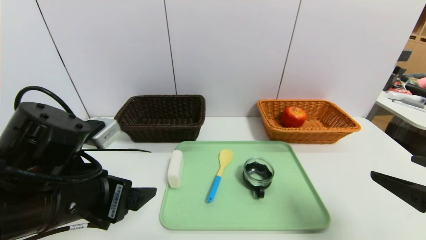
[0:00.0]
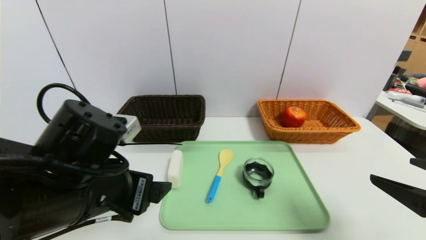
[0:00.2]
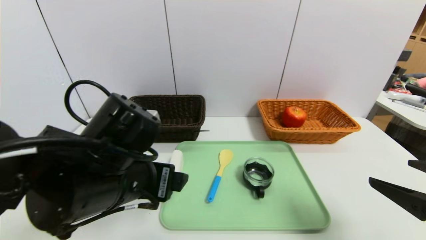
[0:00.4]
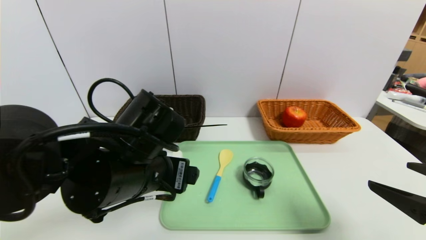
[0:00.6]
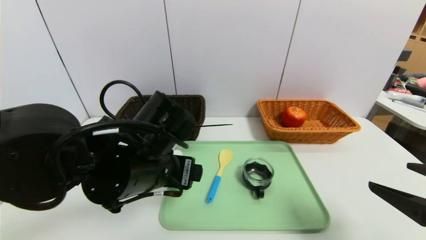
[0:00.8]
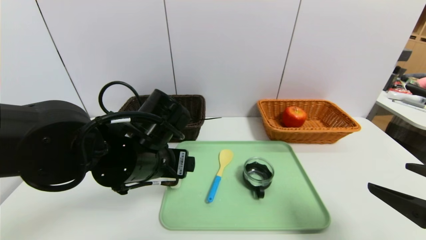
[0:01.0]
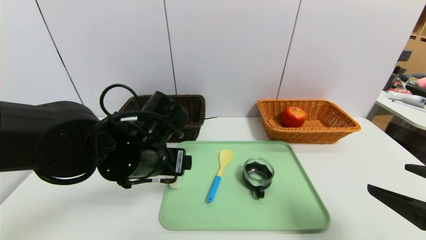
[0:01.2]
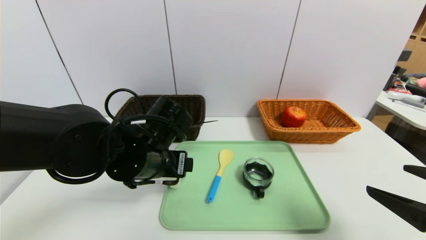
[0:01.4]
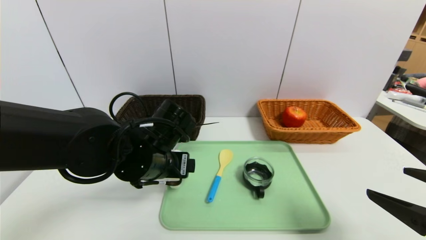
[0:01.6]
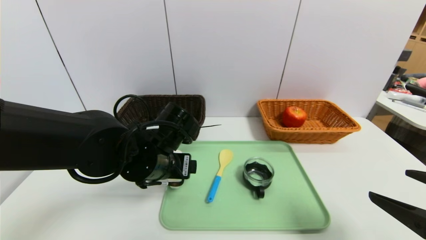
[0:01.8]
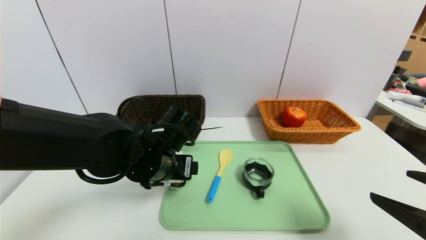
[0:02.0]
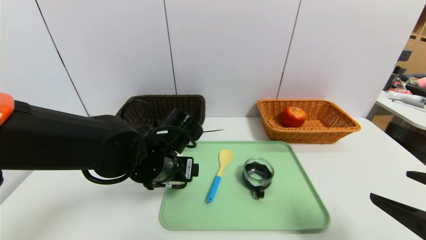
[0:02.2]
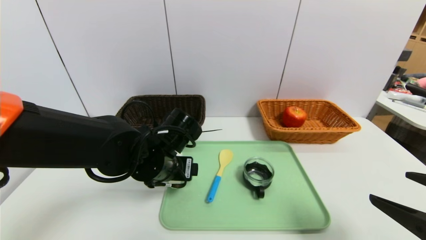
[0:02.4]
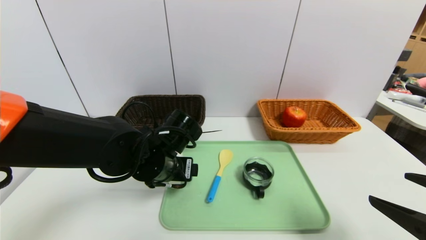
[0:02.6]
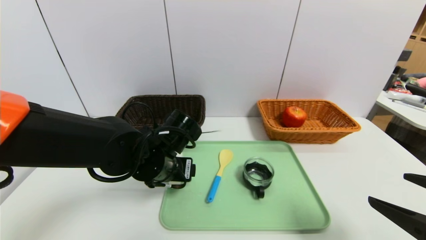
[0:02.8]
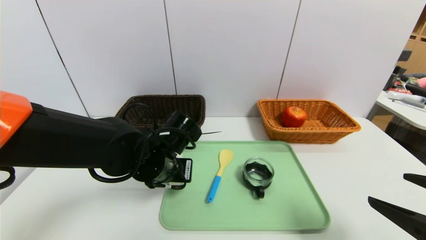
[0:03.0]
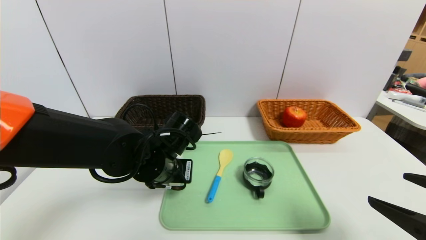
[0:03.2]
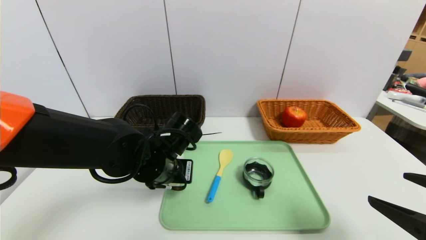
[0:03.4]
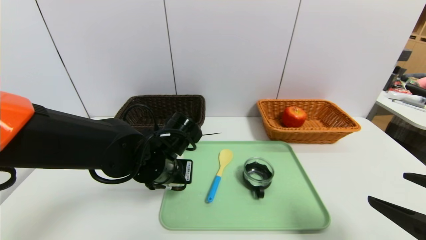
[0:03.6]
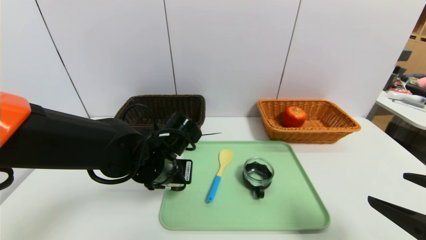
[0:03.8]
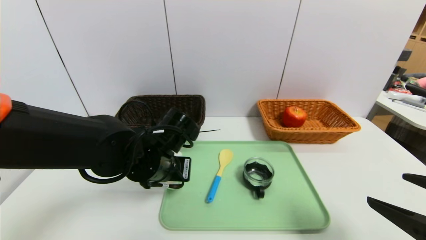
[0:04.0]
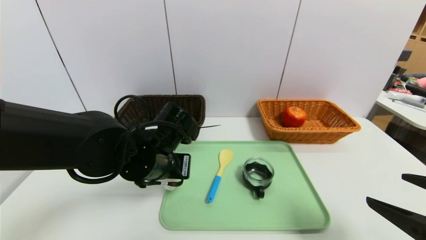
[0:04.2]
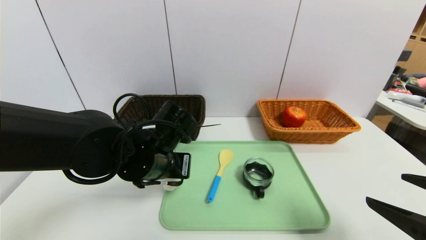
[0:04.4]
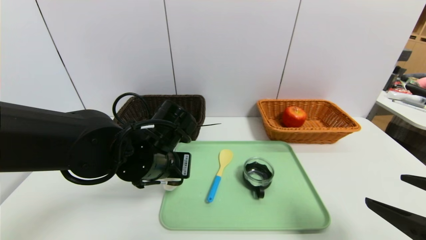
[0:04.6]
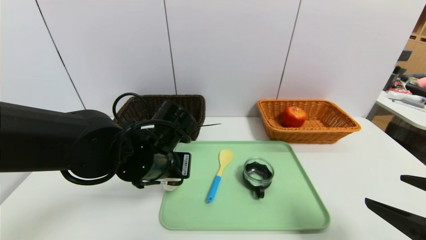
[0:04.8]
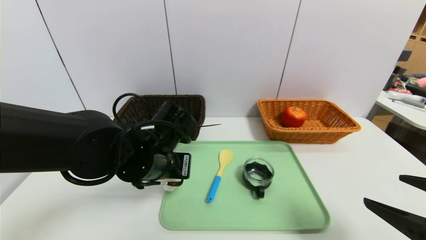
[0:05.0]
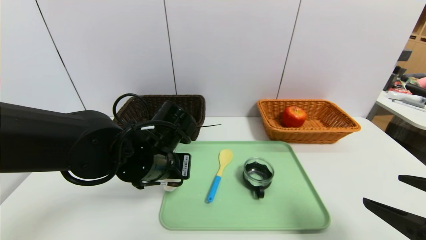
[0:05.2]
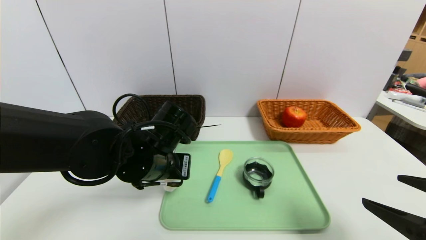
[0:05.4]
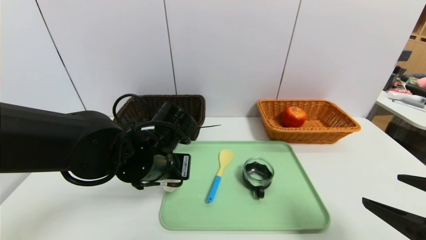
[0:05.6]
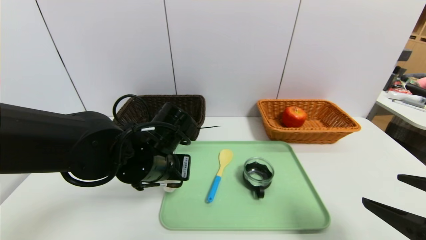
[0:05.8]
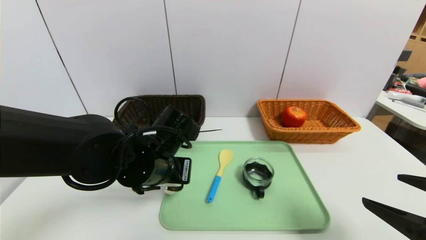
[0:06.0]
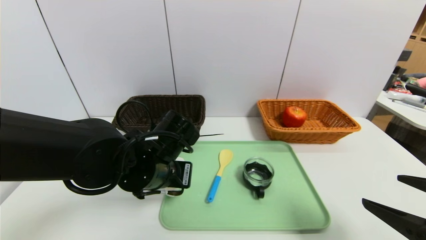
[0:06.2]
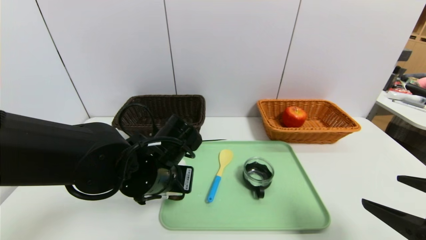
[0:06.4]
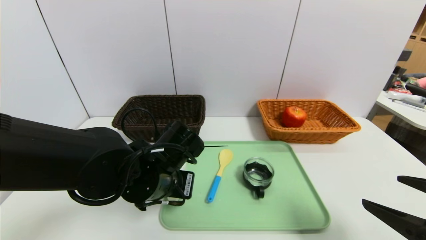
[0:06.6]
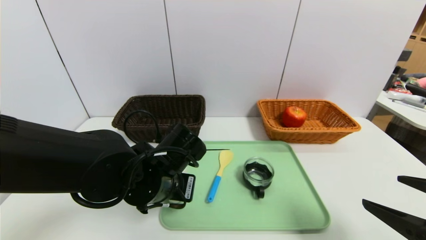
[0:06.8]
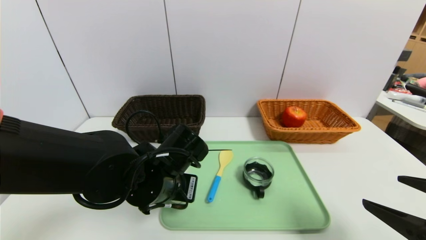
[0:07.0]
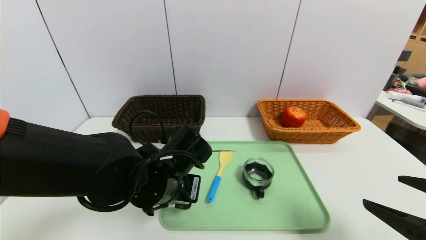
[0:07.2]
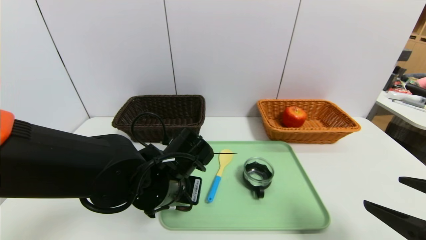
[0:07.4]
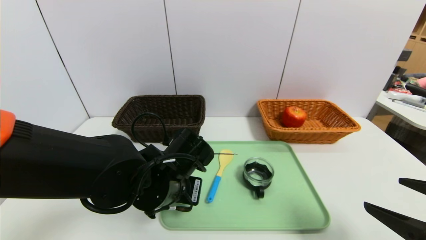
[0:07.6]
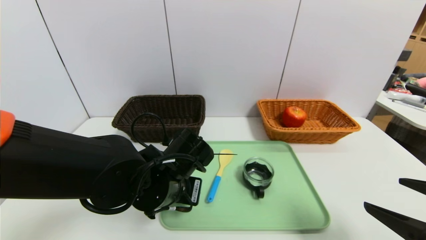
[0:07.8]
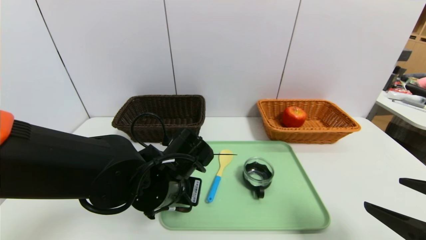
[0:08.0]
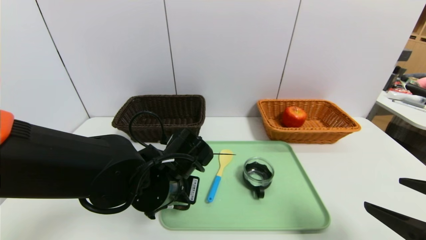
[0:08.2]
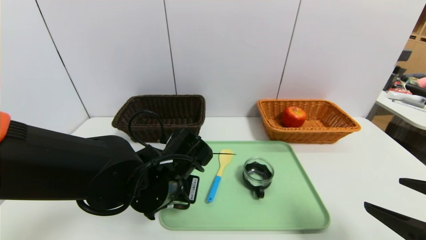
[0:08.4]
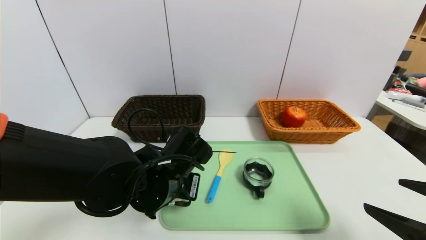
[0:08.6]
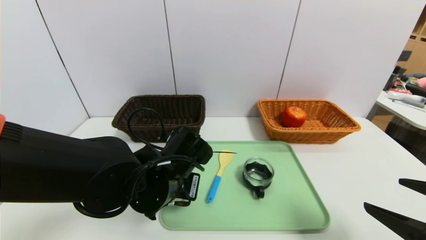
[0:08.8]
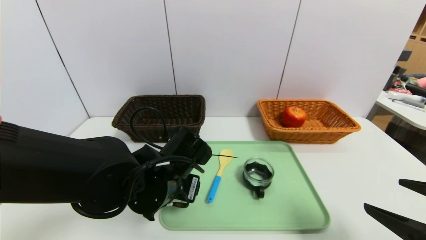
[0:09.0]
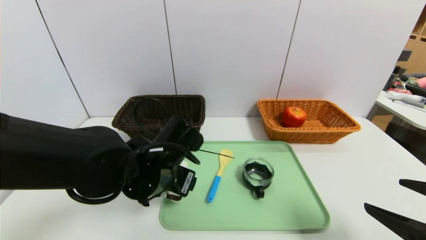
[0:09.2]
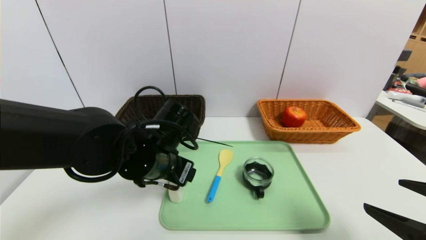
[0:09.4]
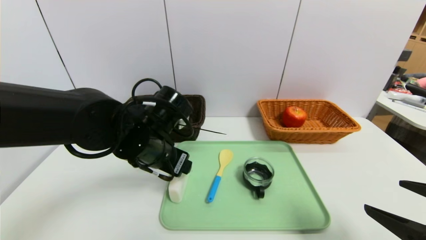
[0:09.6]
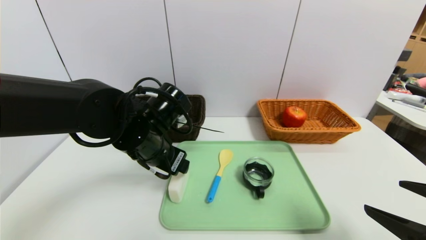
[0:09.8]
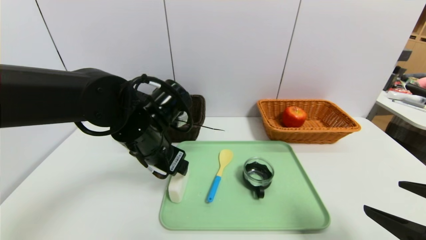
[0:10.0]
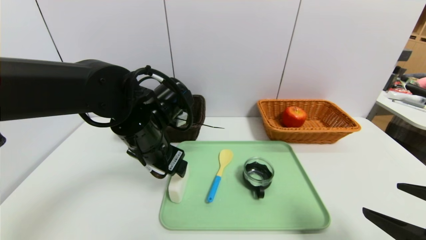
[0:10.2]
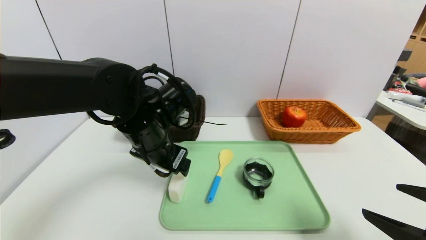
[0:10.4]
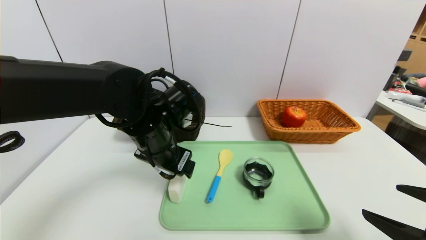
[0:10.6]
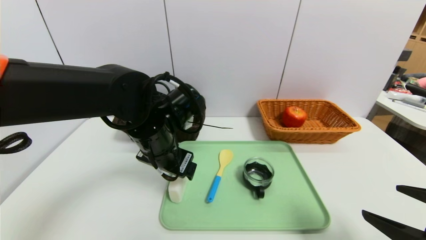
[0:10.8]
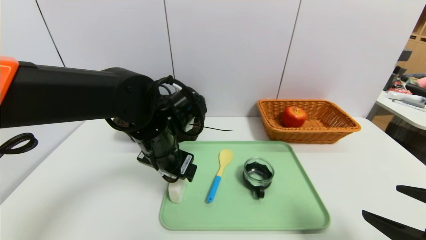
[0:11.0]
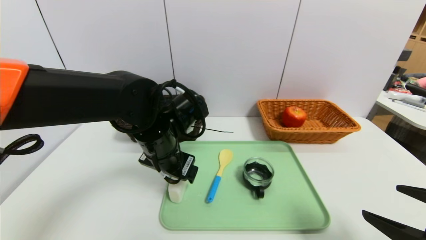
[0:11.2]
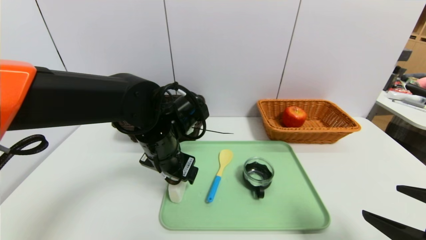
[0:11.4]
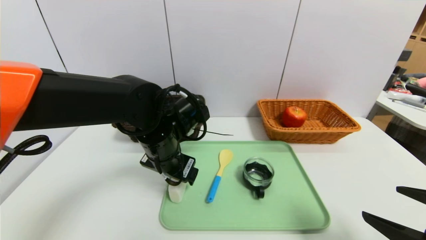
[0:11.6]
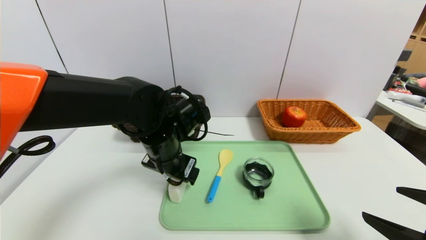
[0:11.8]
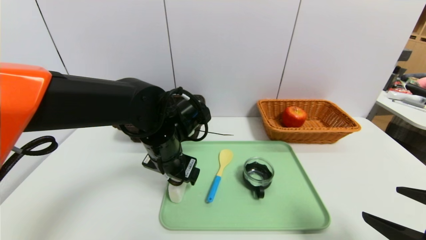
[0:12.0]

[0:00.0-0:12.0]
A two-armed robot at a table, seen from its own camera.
Task of the whole recording: place the food in the right basket with the right gripper, and place the non food items in the left basket with the left gripper.
0:00.0 to 0:01.6: The left gripper is displaced forward and to the right by approximately 15 cm.
0:01.6 to 0:03.0: The left gripper closes up.
0:03.0 to 0:04.4: The left gripper closes its fingers.
0:04.4 to 0:06.0: The two grippers keep their place.
0:06.0 to 0:07.6: The grippers make only small movements.
0:07.6 to 0:09.0: The left gripper opens its fingers.
0:09.0 to 0:10.4: The left gripper goes some 5 cm upward.
0:10.4 to 0:12.0: The grippers move only a little.

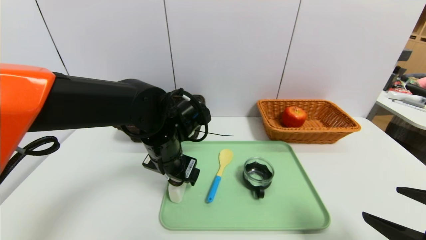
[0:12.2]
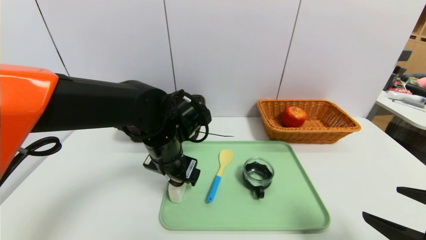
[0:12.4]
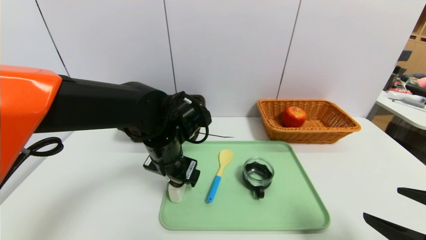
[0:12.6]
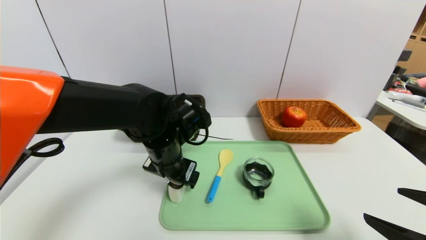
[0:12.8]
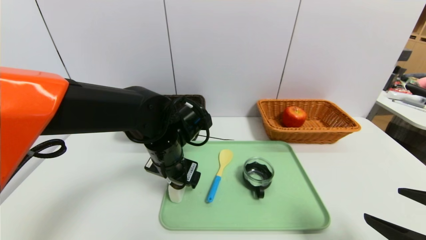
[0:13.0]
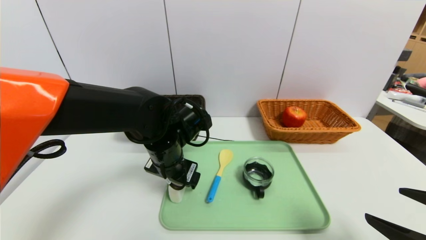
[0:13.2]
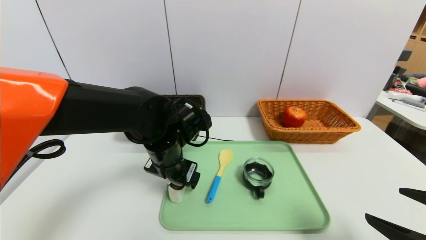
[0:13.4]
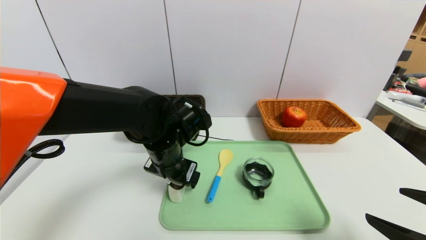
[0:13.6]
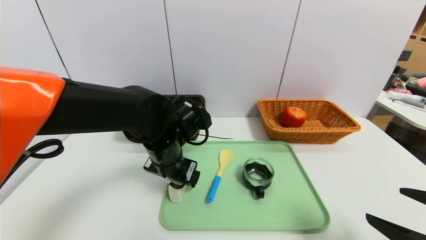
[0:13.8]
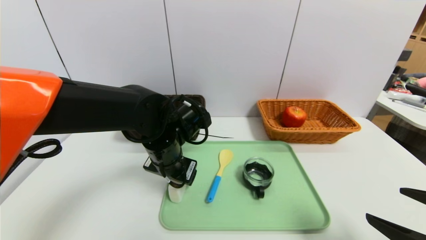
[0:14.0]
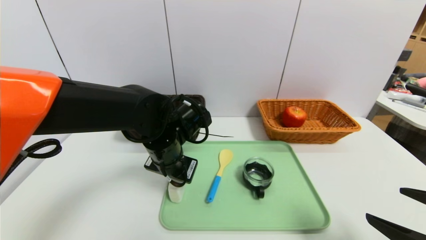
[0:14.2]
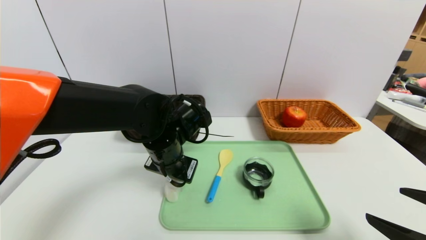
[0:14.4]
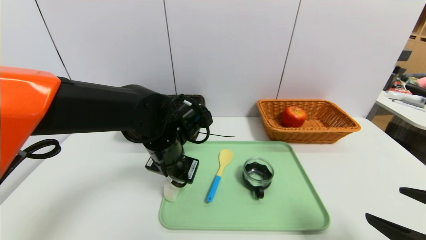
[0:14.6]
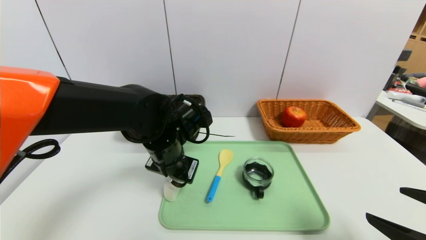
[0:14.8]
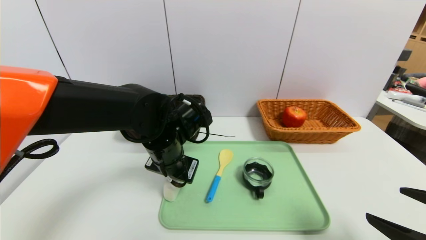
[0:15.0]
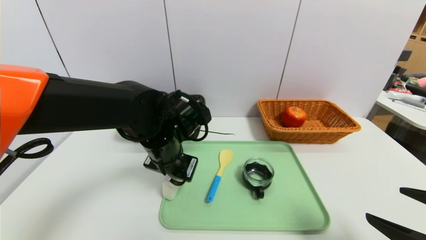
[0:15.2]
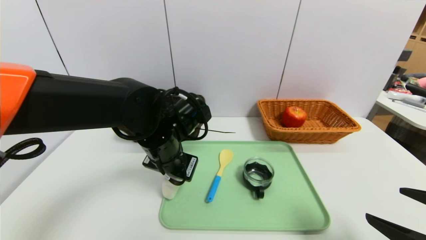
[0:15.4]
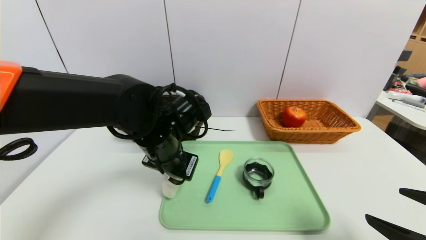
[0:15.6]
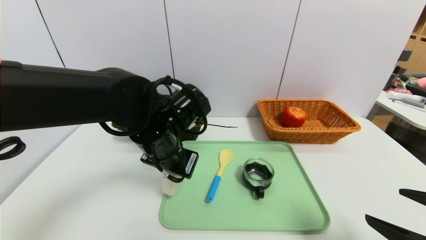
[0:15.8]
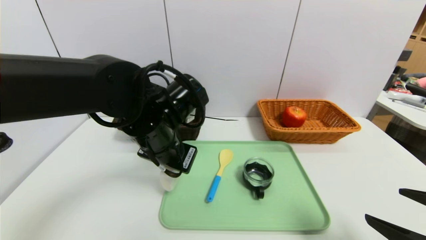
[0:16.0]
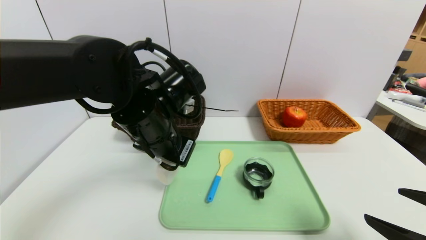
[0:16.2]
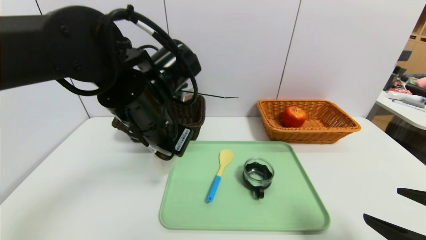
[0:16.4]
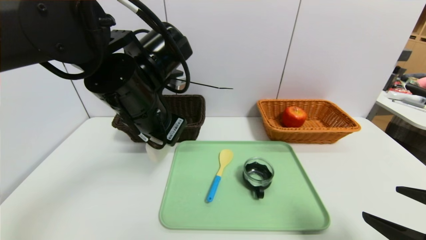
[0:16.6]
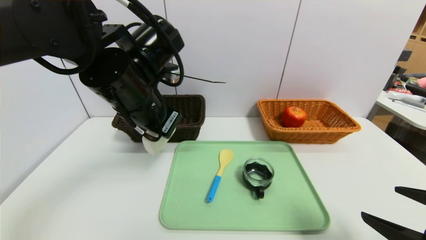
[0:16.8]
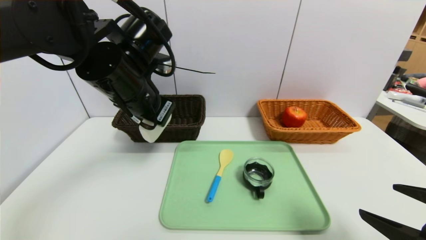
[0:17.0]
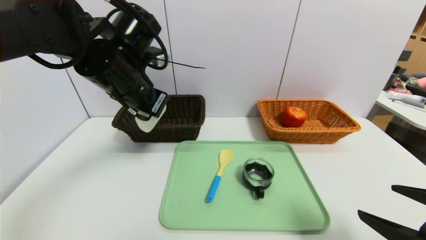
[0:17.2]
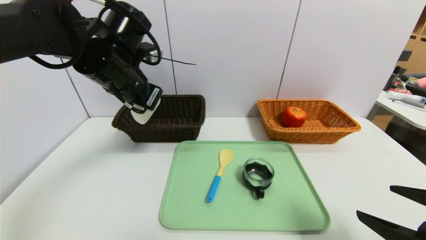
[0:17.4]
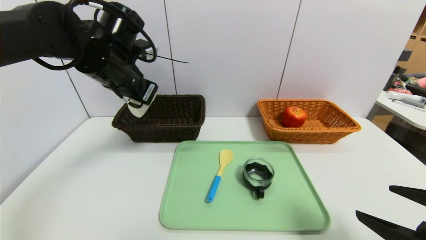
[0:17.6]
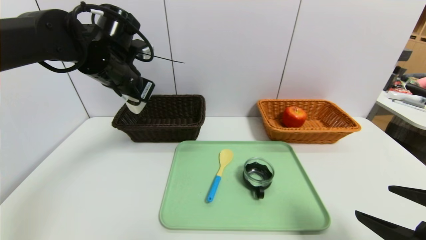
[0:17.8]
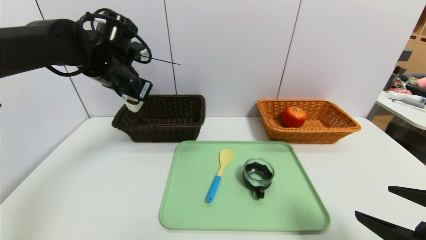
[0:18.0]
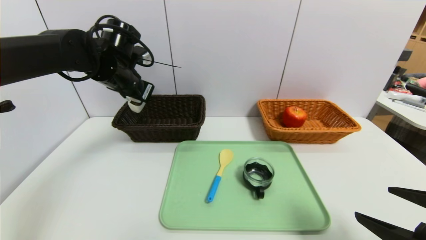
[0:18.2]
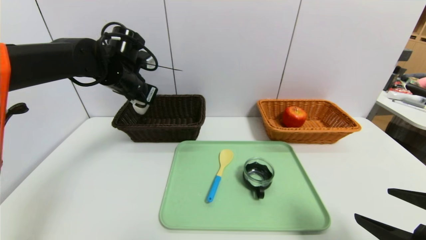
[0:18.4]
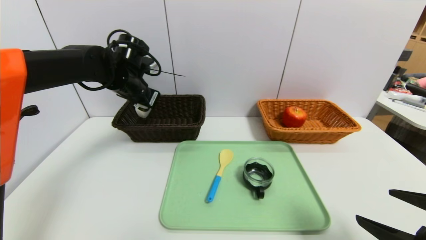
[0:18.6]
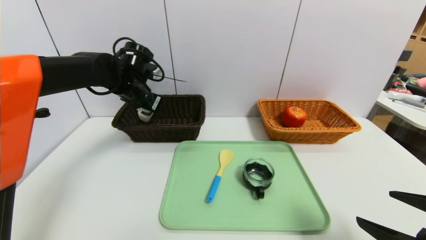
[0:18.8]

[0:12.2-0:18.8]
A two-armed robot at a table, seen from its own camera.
Task of the whole recording: place the food in the right basket with the right gripper, and place the non food items in the left basket with the left gripper.
0:12.2 to 0:13.8: The two grippers keep their place.
0:13.8 to 0:15.4: The left gripper closes.
0:15.4 to 0:17.2: The left gripper heads upward and to the left, covering about 15 cm.
0:17.2 to 0:18.8: The left gripper travels forward and downward by some 15 cm.
